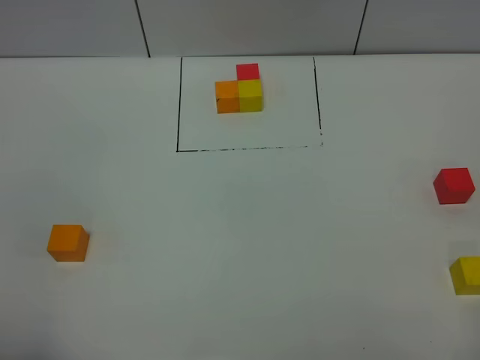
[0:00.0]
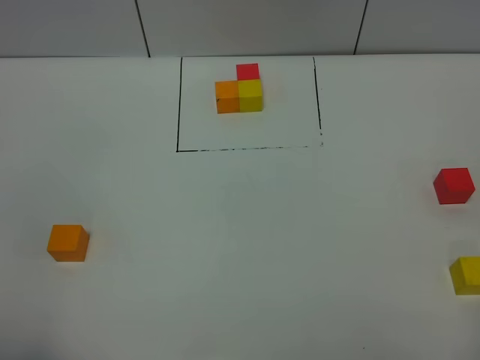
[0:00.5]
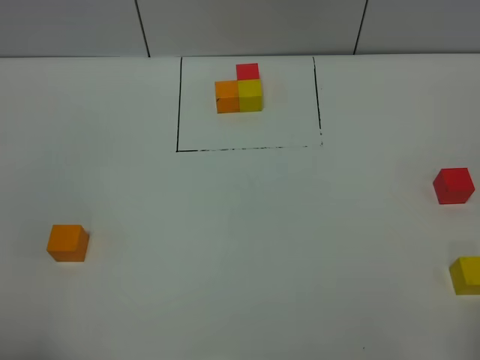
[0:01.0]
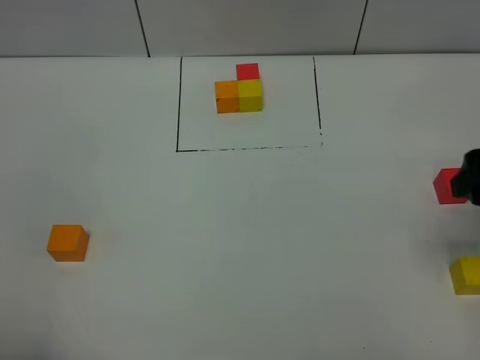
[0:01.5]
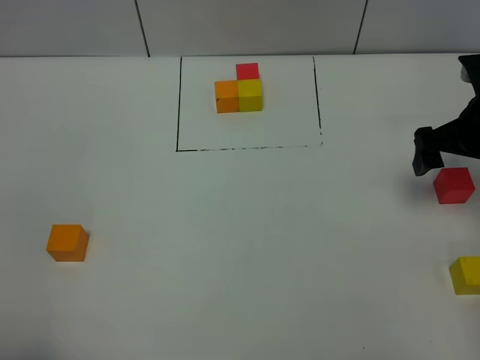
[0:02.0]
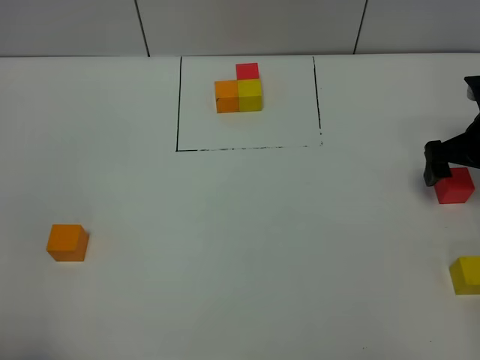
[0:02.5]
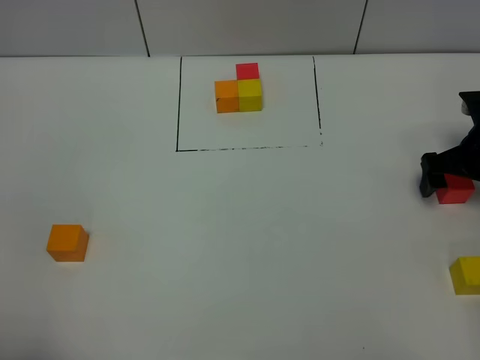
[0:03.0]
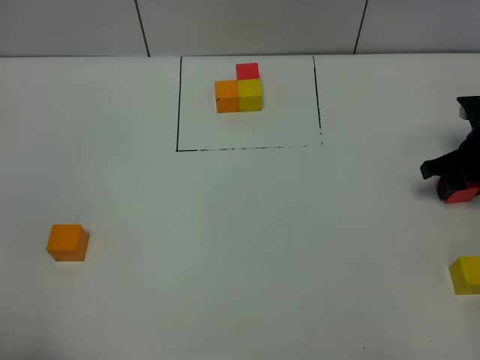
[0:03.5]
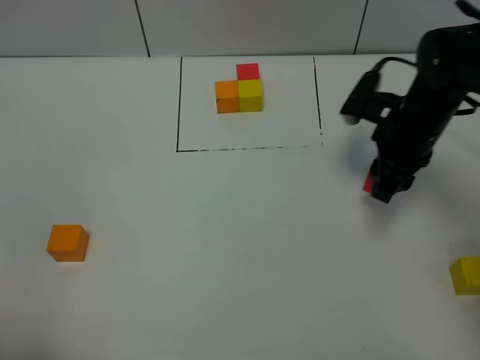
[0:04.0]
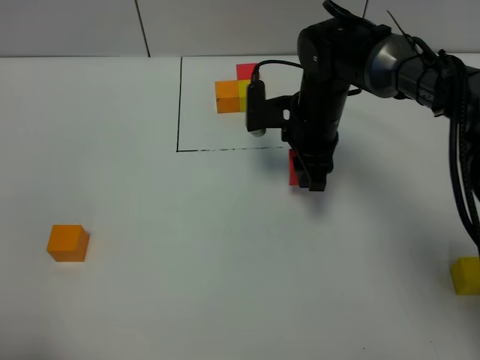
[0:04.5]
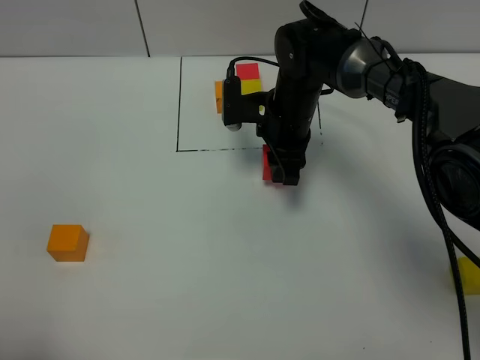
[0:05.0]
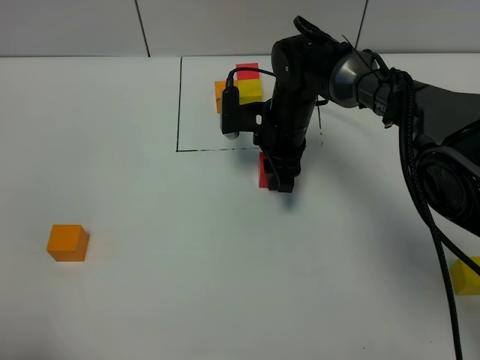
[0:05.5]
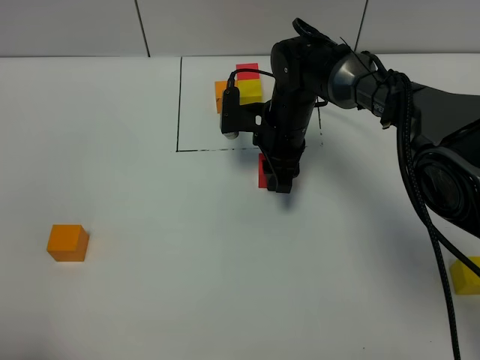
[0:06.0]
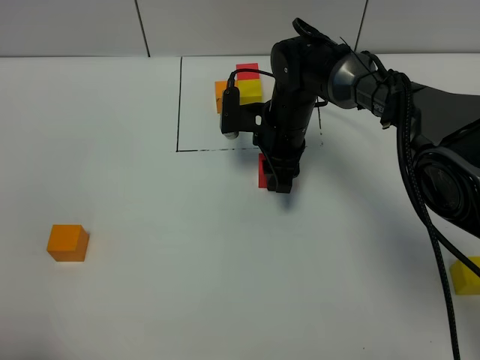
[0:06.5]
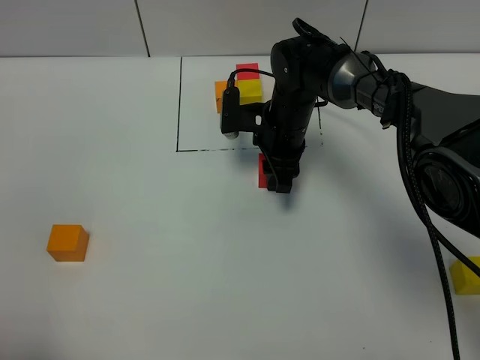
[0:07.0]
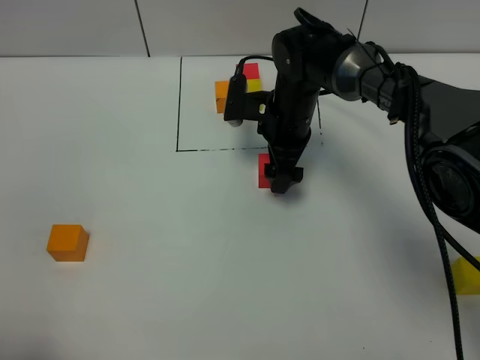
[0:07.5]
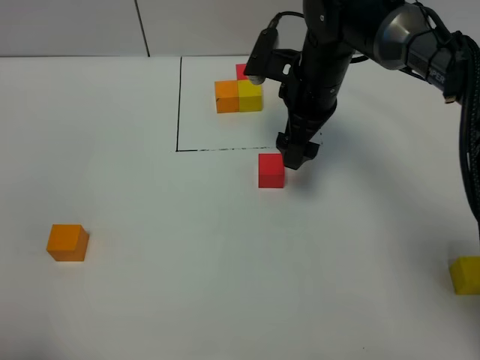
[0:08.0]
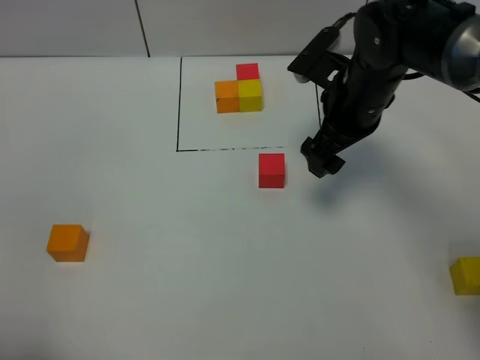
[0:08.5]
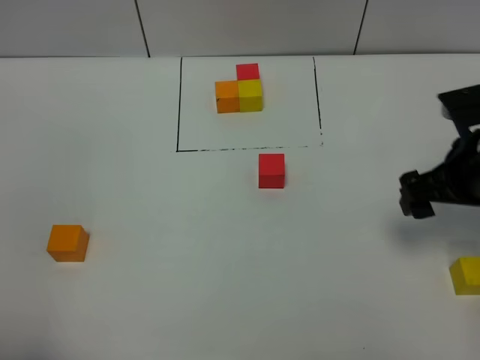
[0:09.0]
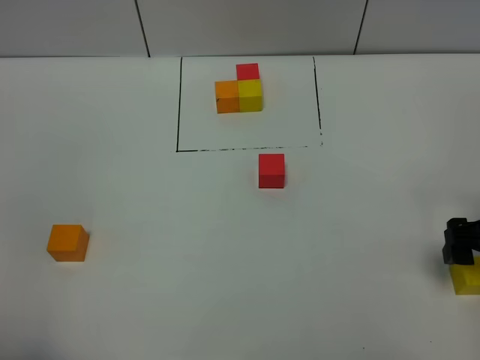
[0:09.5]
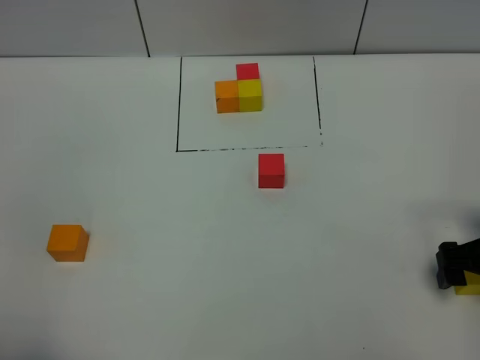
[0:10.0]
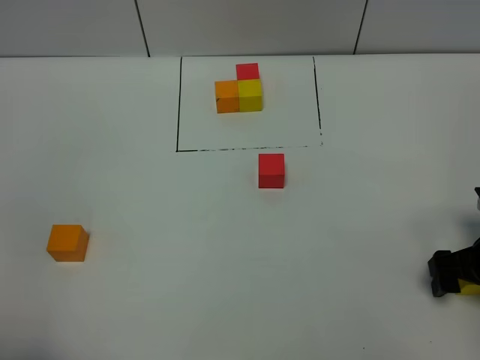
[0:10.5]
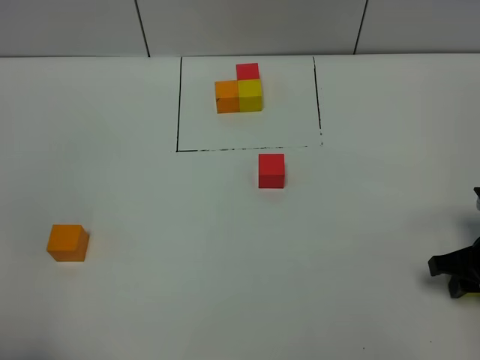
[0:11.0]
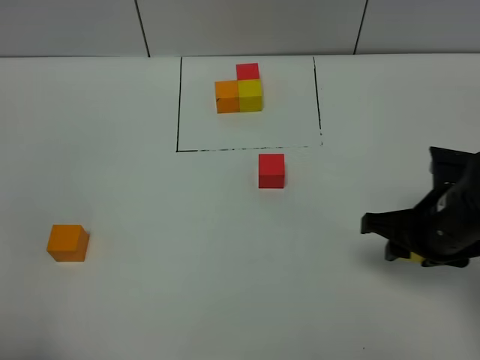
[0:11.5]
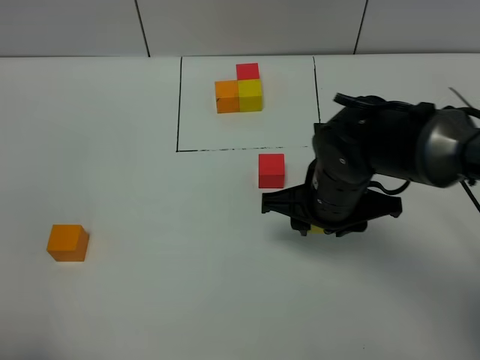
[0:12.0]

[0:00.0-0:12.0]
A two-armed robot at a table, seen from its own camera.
Task of the whole recording: According to the building block template in front, assemble the scattered blocks together.
Step, 0:00.0 to 0:07.0: Put the red build block in the center of the table.
0:00.0 to 0:02.0: The right gripper moves forward, some 35 cm.
0:02.0 to 0:04.0: The right gripper travels to the left by approximately 10 cm, and closes up.
0:04.0 to 0:06.0: The right gripper heads to the left, forward and downward, covering about 15 cm.
0:06.0 to 0:08.0: The right gripper shifts approximately 10 cm upward, and opens its fingers.
0:08.0 to 0:10.0: The right gripper travels to the right and backward by roughly 30 cm.
0:10.0 to 0:12.0: The right gripper shifts roughly 20 cm to the left, and closes its fingers.

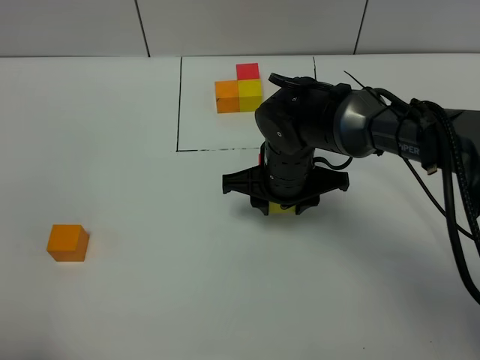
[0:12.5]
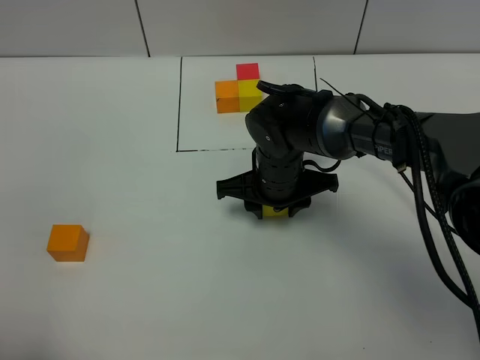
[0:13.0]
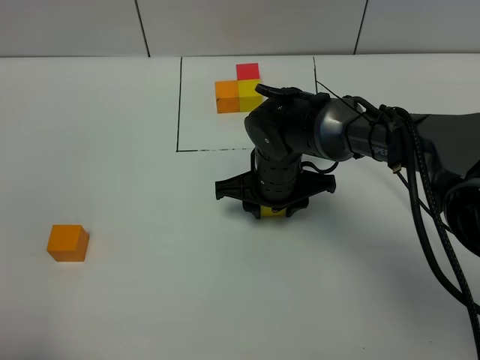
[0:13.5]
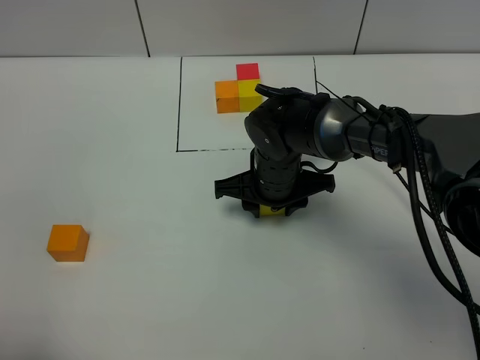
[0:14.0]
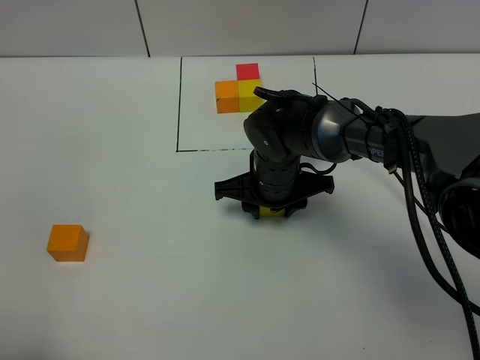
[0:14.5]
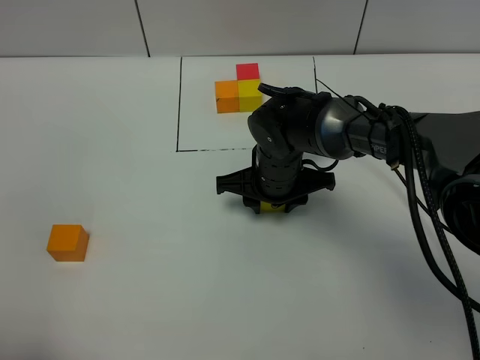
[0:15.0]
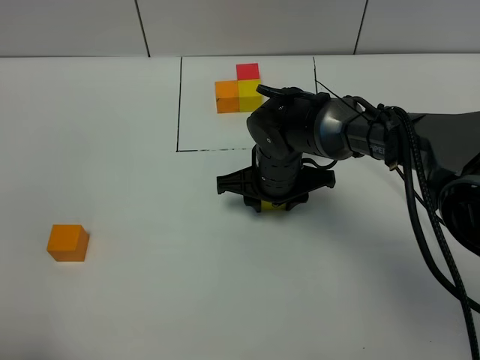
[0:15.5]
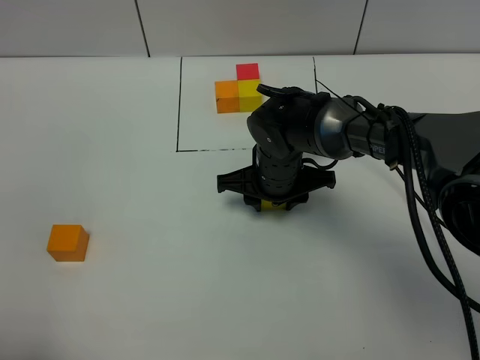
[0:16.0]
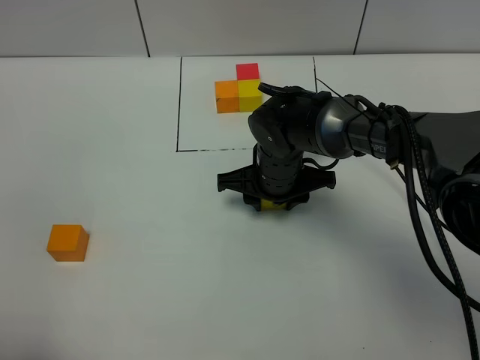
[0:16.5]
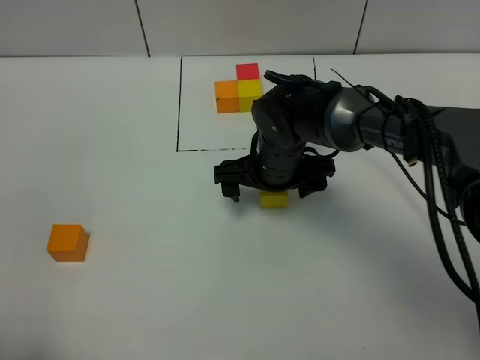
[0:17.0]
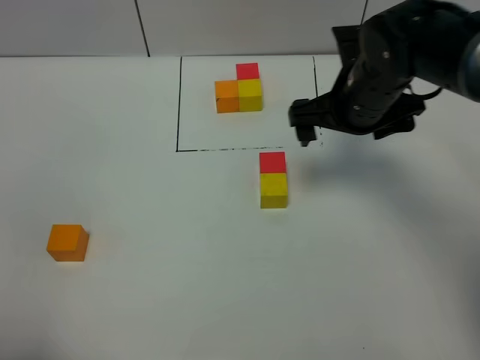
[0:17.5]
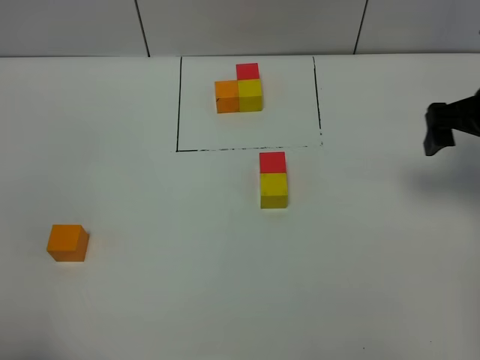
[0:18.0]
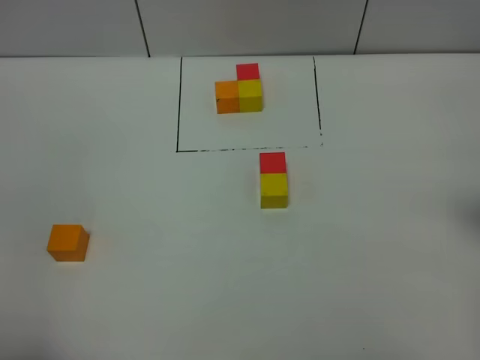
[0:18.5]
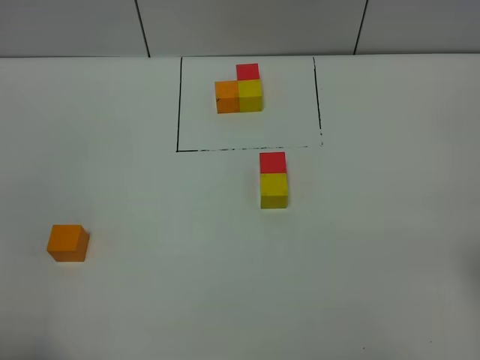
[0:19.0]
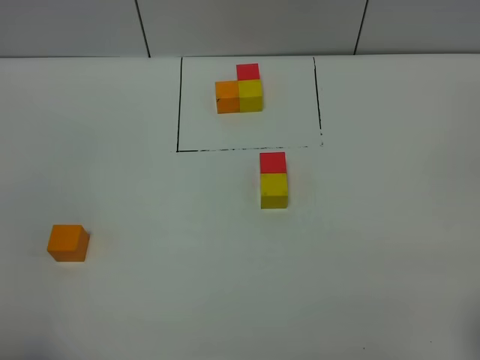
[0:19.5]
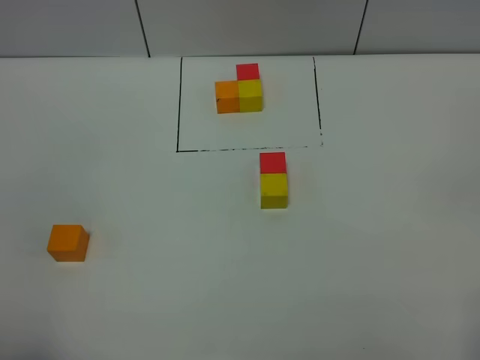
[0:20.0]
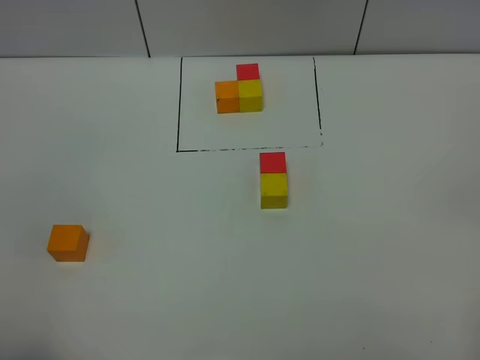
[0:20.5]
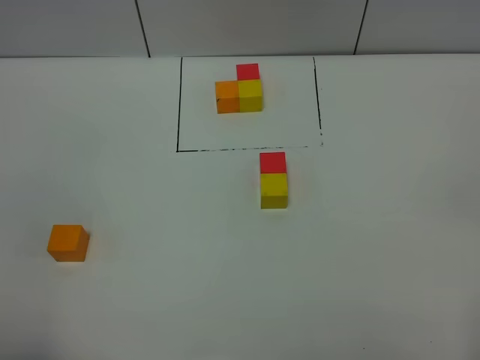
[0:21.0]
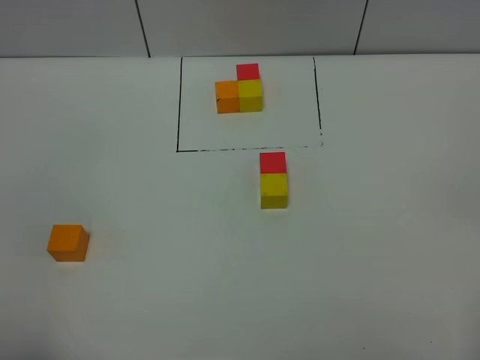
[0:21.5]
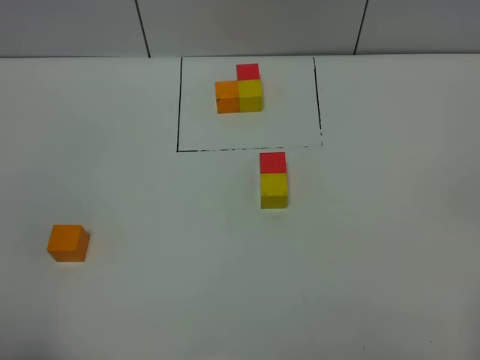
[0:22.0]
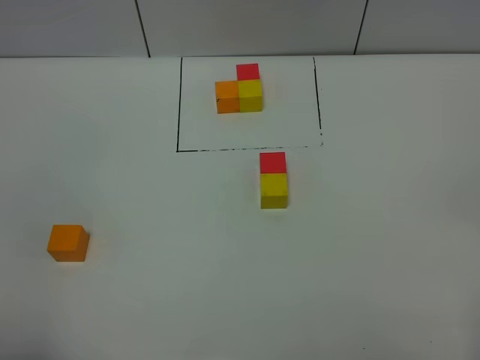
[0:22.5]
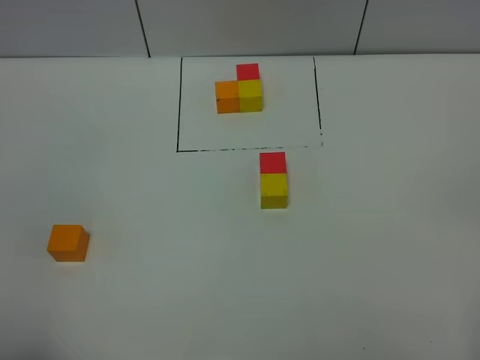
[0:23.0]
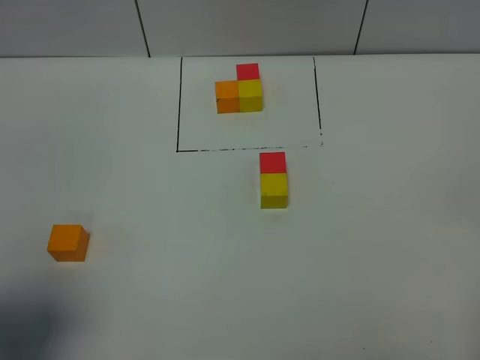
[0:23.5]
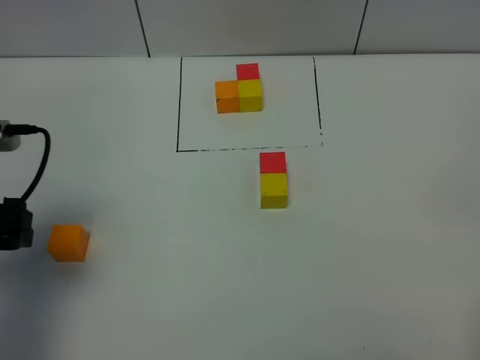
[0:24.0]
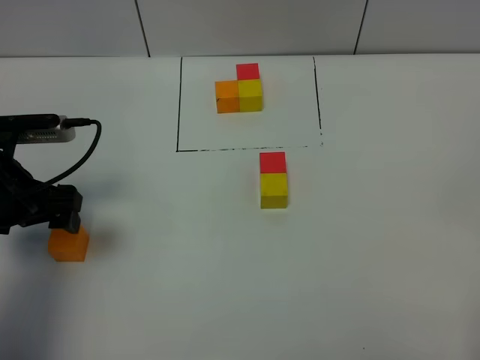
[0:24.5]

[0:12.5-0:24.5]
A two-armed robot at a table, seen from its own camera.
Task of the whole recording: According to the building block template in front, assemble the scattered blocks together.
Step, 0:12.5 to 0:16.5: Put the yellow build block on the behind of the red build block.
0:12.5 to 0:14.5: The grippers move only a little.
0:14.5 to 0:16.5: The two grippers keep their place.
0:16.5 to 0:18.5: The right gripper heads to the right and upward, covering roughly 35 cm, and opens up.
0:20.5 to 0:22.5: Both grippers stay put.
0:22.5 to 0:24.5: The left gripper shifts approximately 25 cm forward.

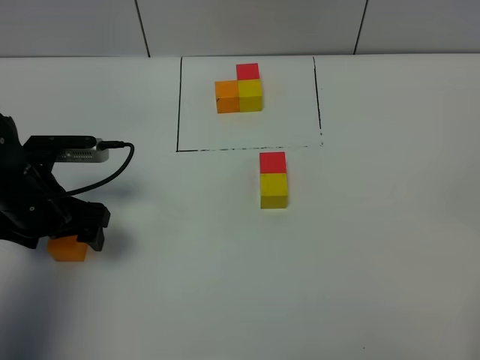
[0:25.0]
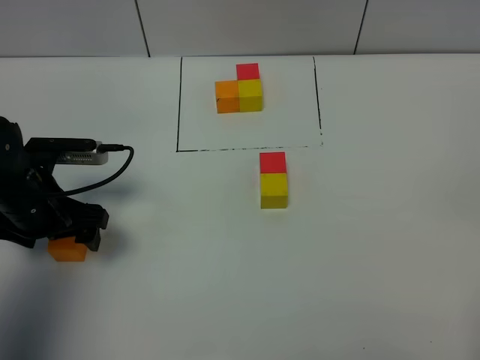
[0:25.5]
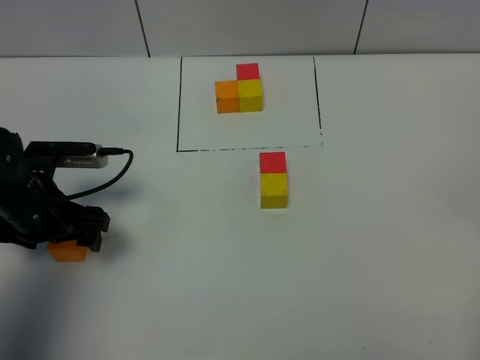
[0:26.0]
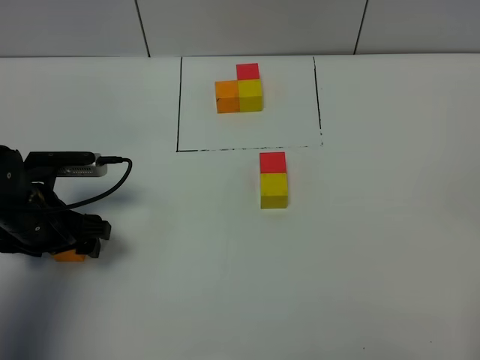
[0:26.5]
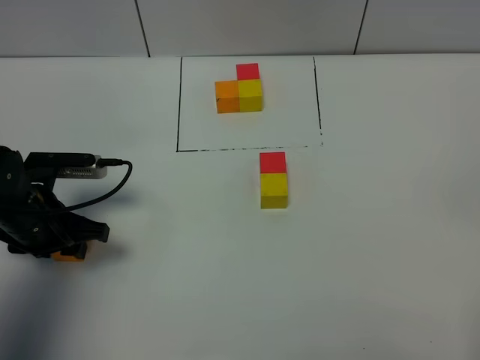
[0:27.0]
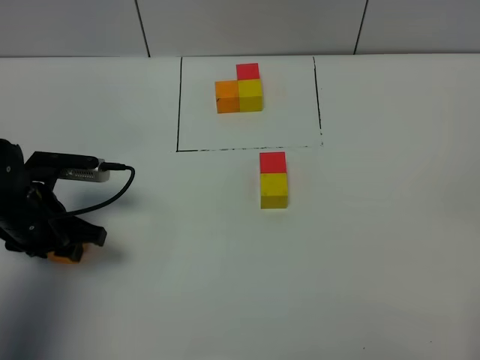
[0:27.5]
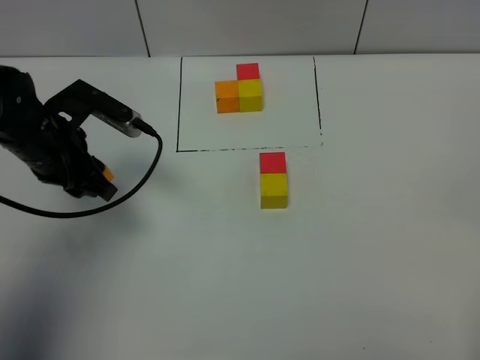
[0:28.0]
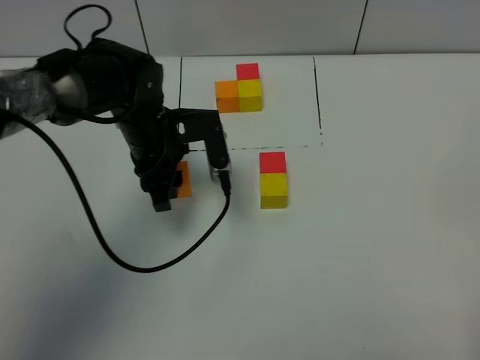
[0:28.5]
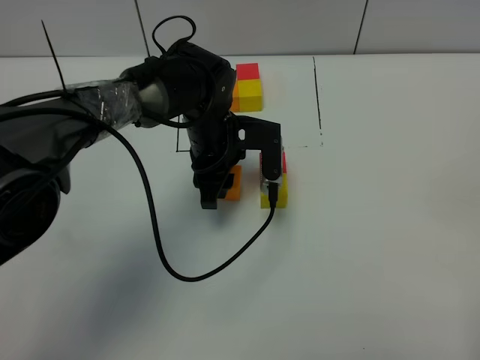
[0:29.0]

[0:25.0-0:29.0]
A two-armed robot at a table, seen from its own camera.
Task of the whole recording: According to the building block template in front, assemble the scattered blocks together.
0:25.0 to 0:27.0: The left gripper closes up.
0:27.0 to 0:29.0: The left gripper goes some 25 cm to the right and forward.
